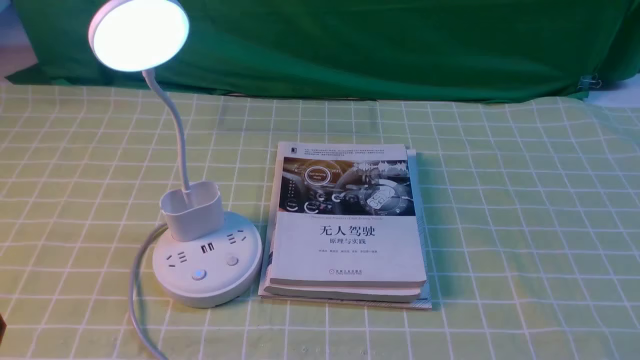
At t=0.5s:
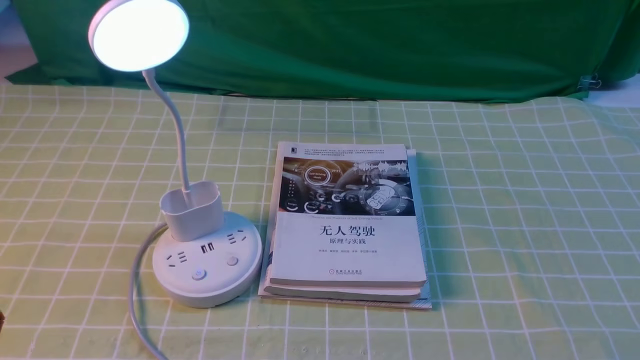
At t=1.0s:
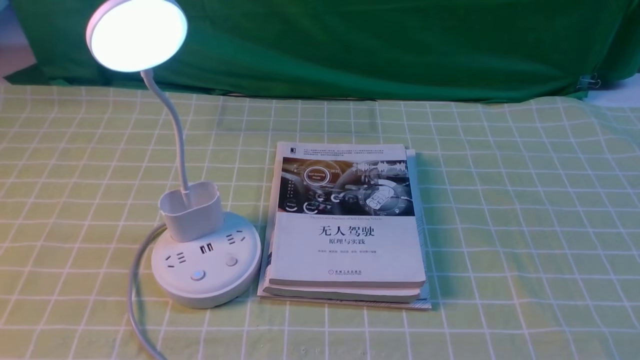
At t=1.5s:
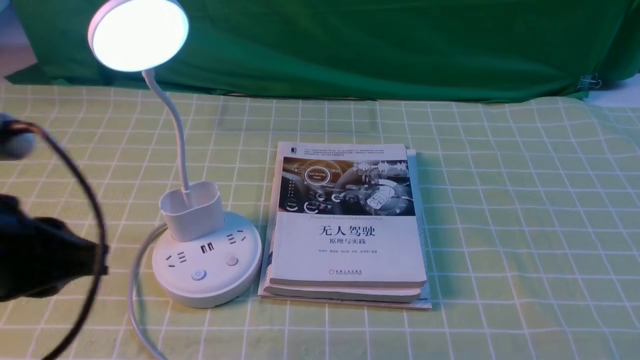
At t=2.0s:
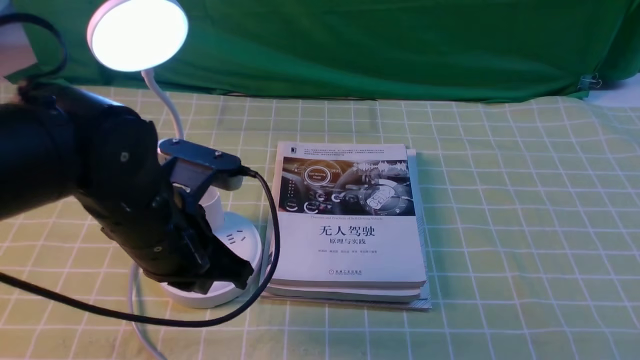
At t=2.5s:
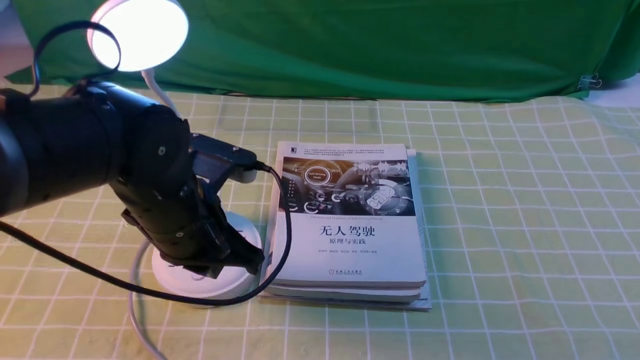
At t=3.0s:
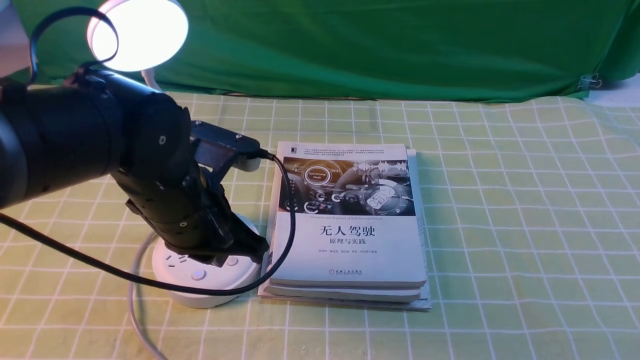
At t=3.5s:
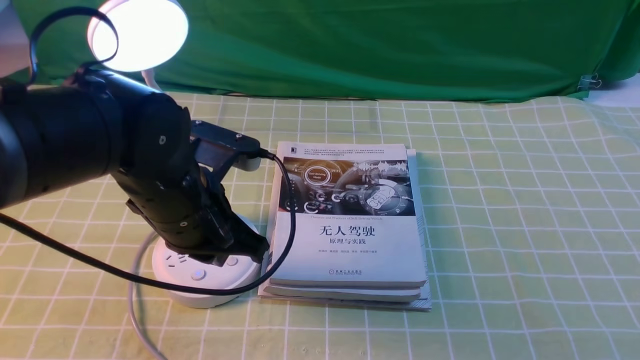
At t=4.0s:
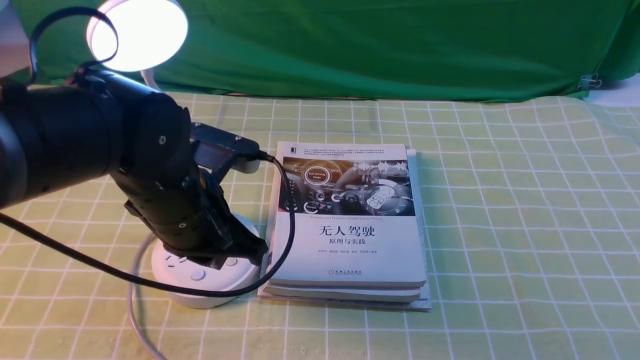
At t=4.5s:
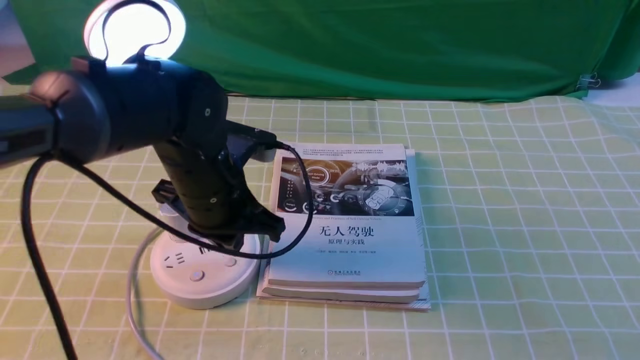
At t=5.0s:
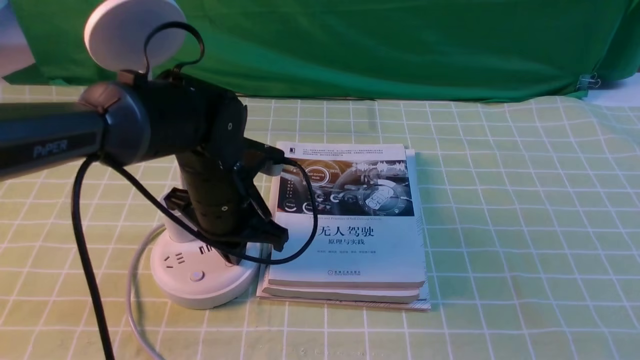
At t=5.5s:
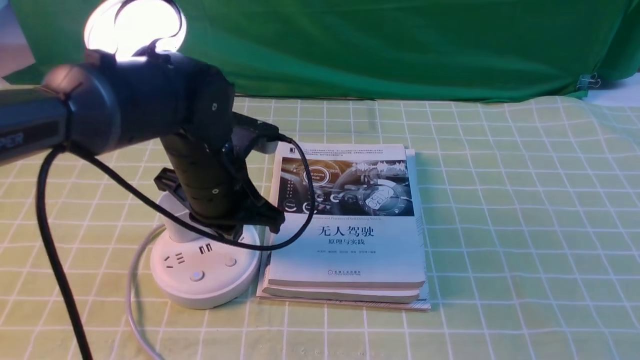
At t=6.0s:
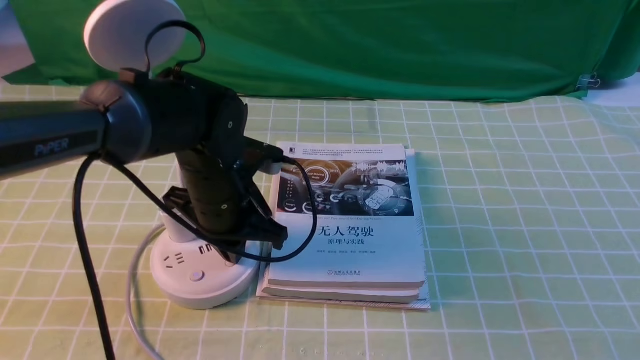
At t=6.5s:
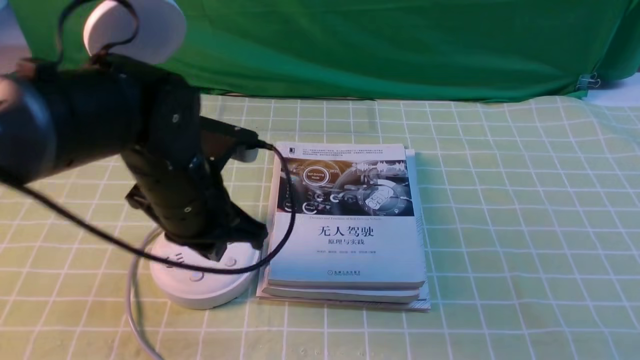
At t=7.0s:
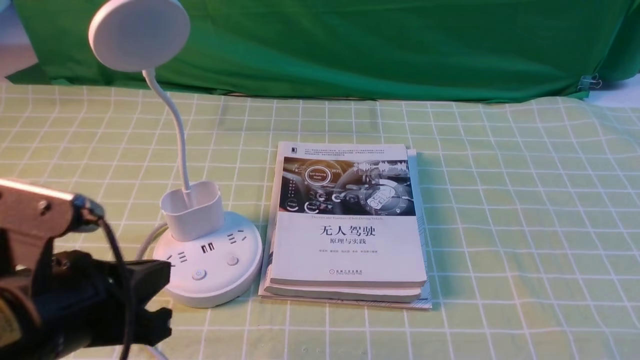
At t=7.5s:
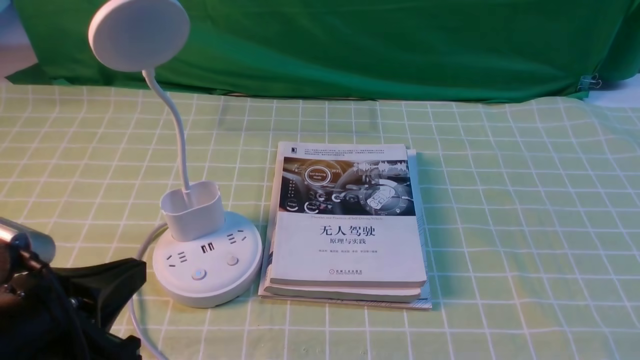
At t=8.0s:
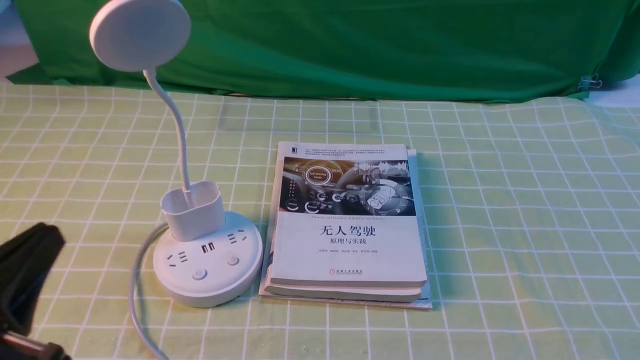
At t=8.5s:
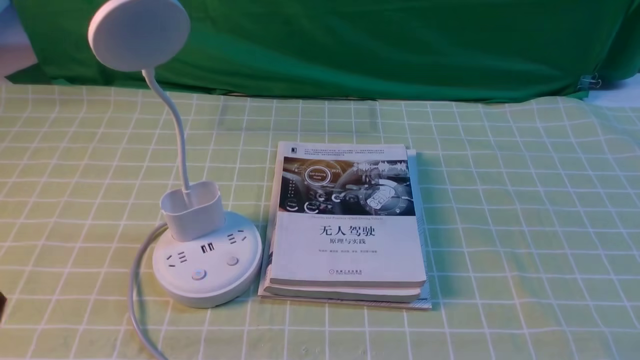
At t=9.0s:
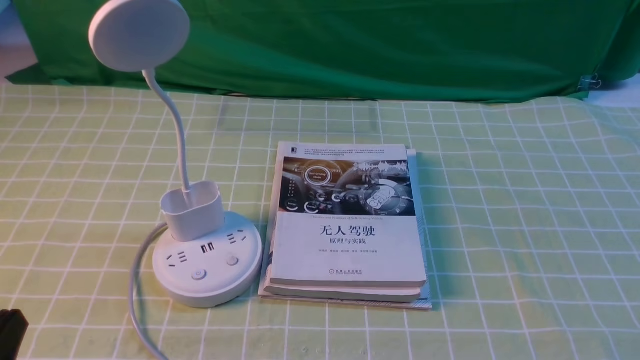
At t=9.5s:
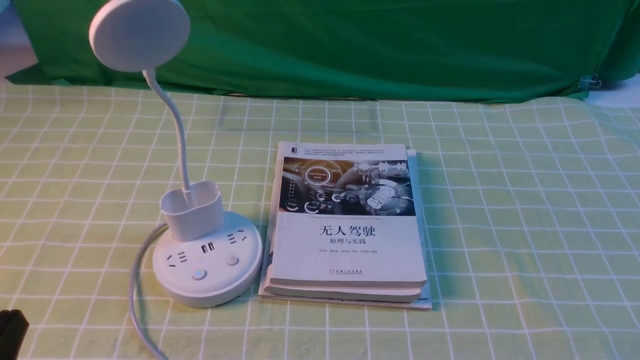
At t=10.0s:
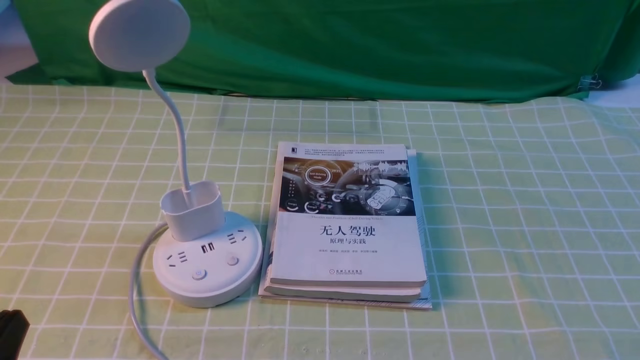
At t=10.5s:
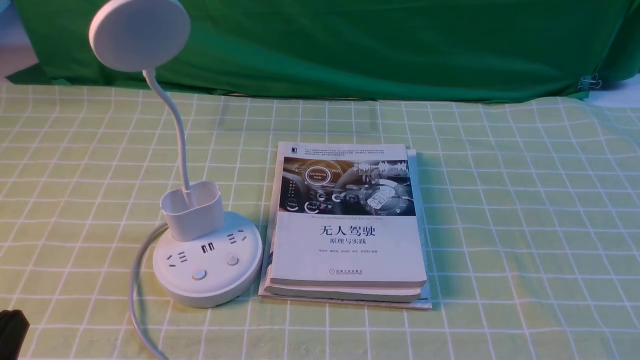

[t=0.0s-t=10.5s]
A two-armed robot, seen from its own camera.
Task of the whole recording: turn off the desk lamp on the green coffee tablecloth by hand.
Step, t=0.0s to t=6.0s: use the left arm to press the button switch on the lamp holder.
t=2.0s to t=4.0s: The left gripper ends up roughly 5 cm from where it was.
t=6.5s to t=8.5s: The left gripper goes some 30 cm backward and to the left, and opens, then closes once more.
